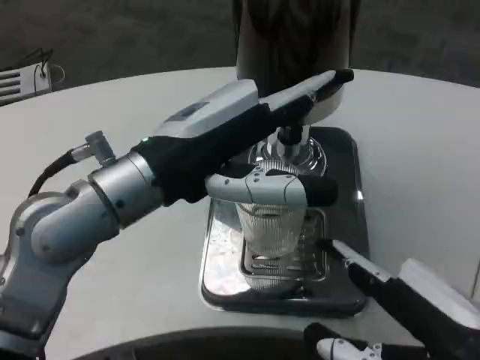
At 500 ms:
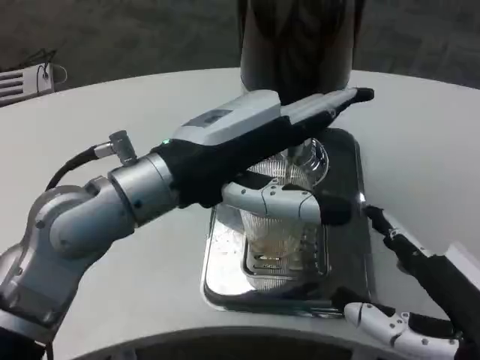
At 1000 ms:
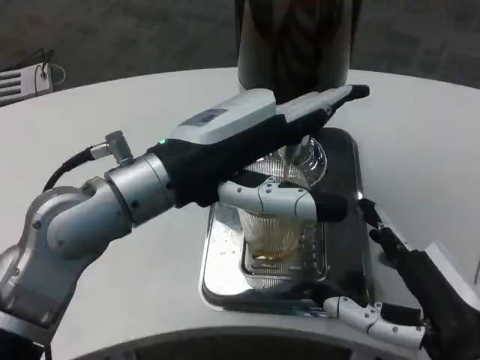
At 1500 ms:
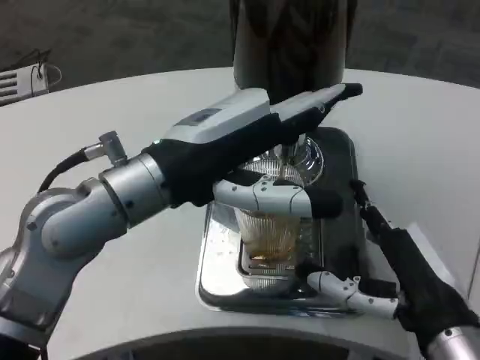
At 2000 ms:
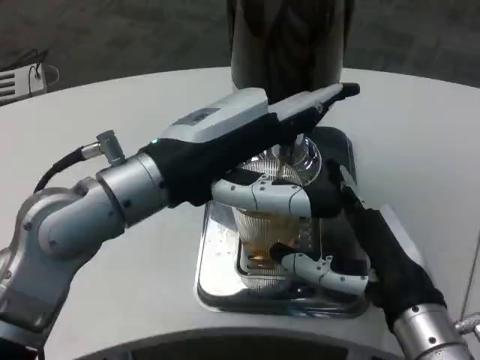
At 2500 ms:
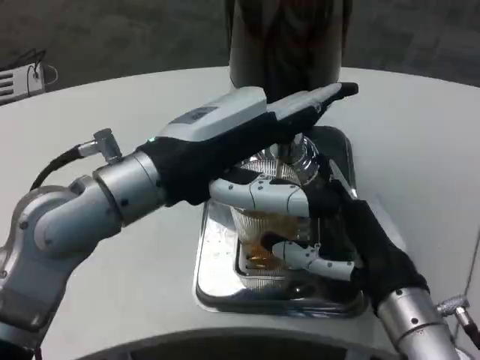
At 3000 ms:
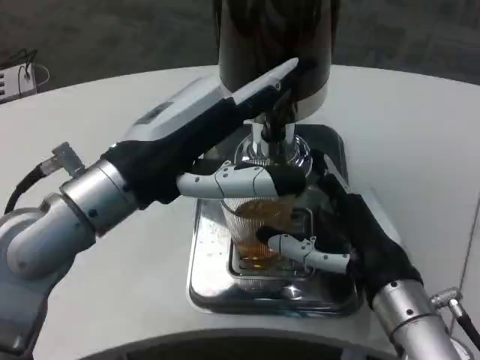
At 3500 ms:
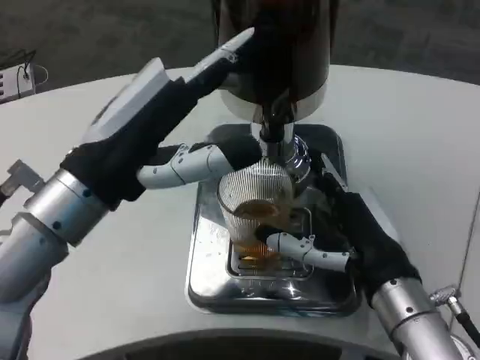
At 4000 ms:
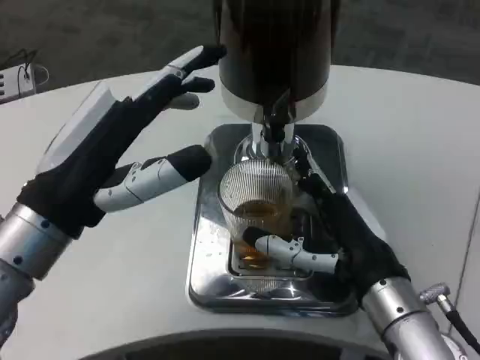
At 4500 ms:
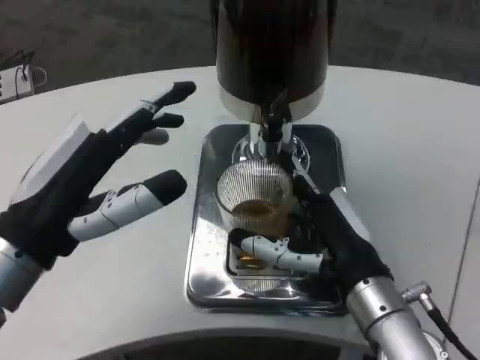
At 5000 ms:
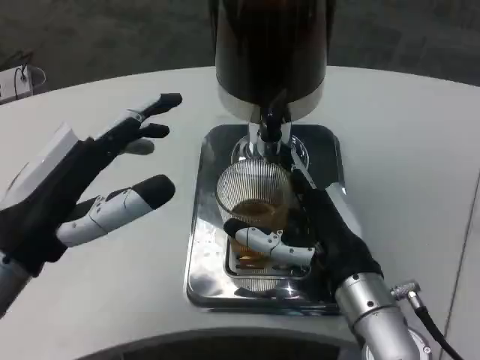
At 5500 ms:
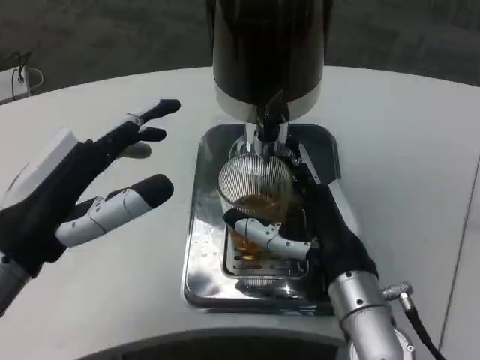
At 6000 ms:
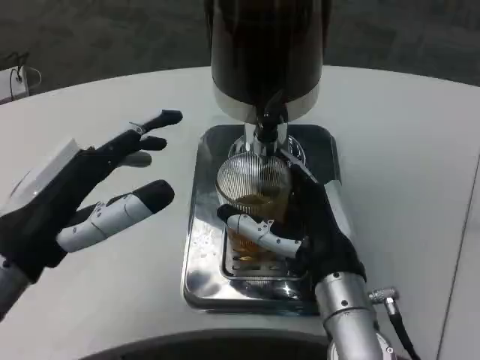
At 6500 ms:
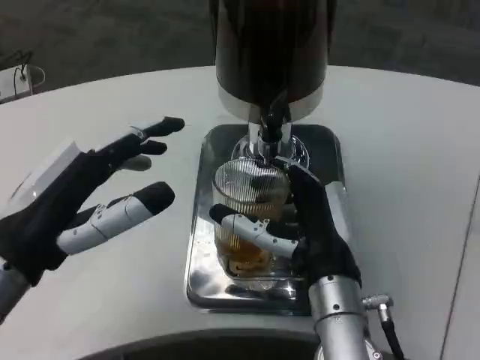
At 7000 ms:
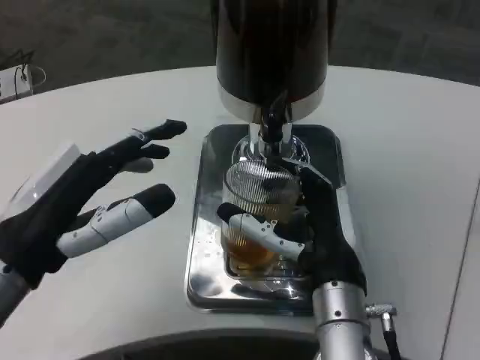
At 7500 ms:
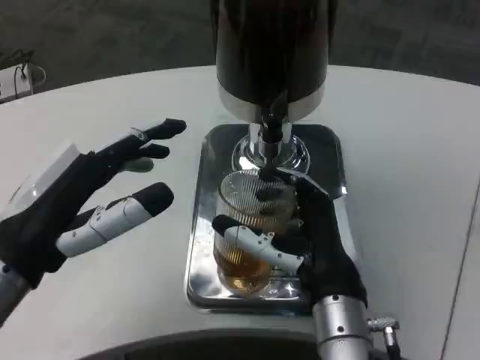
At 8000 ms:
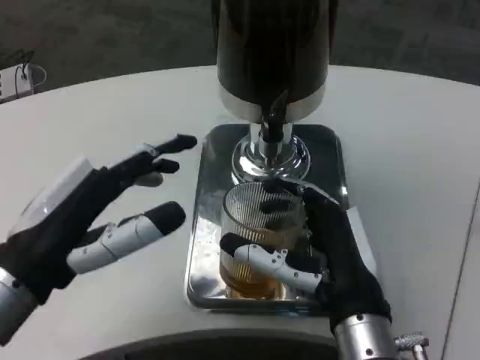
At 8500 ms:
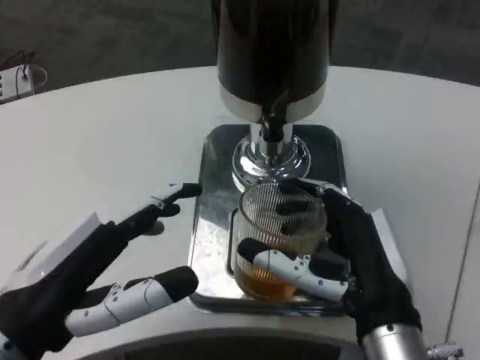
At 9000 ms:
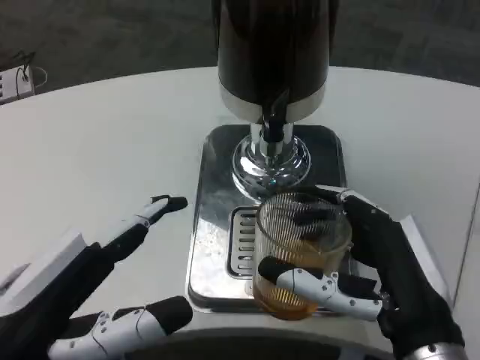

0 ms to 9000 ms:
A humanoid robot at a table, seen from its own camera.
Task of the whole recording: Grasp the cup under the faucet to collect the drink, then remove the cup.
0 ms to 2000 ms: The right hand travels forward and downward by some 10 cm.
2000 ms to 4500 ms: The left hand heads to the left, downward and backward, covering approximately 10 cm.
4500 ms to 7000 ms: The right hand is displaced to the left by about 5 cm.
7000 ms to 9000 ms: The left hand moves backward, roughly 5 cm. Meanwhile the right hand moves backward and to the right, approximately 10 cm.

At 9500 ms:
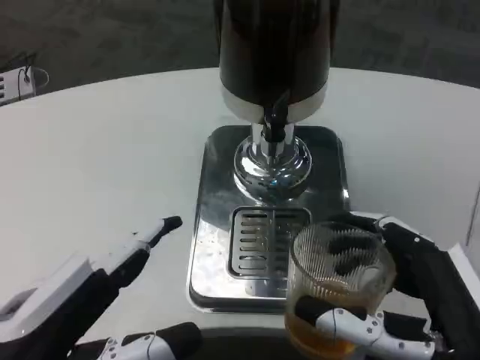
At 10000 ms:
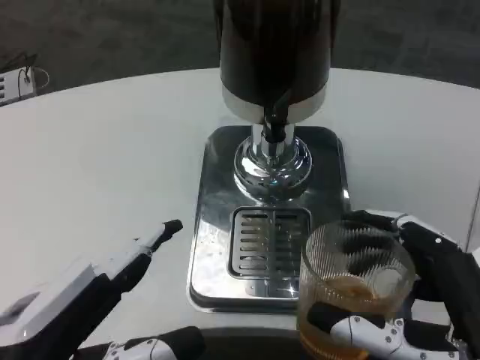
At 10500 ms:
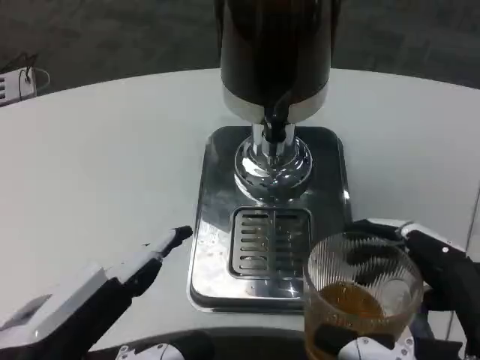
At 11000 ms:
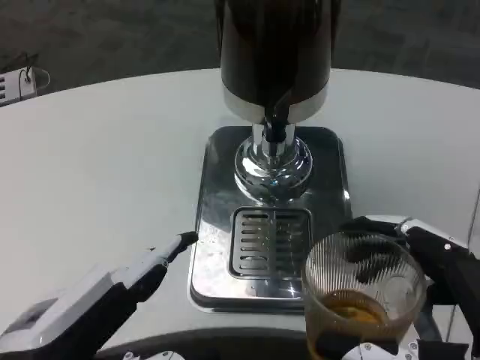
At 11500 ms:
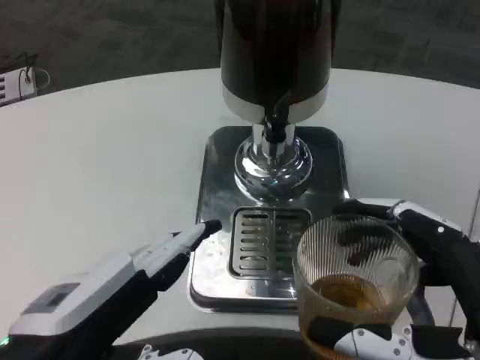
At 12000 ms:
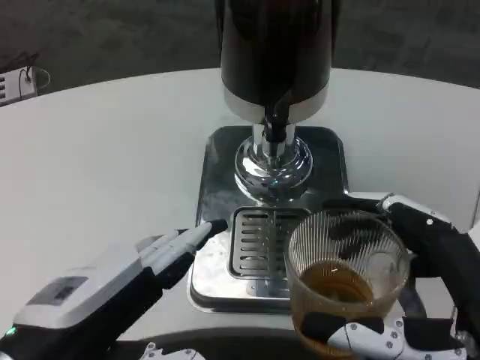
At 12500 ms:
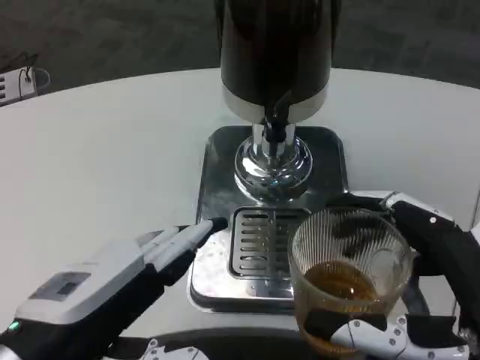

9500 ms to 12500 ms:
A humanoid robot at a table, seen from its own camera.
Task of the whole recording: Grasp the cup under the faucet to collect the drink, then remove the cup.
9500 ms to 12500 ms: The hands make only small movements.

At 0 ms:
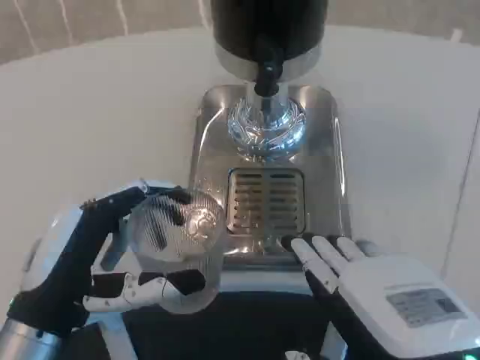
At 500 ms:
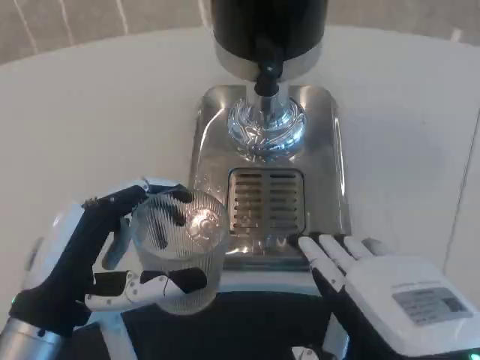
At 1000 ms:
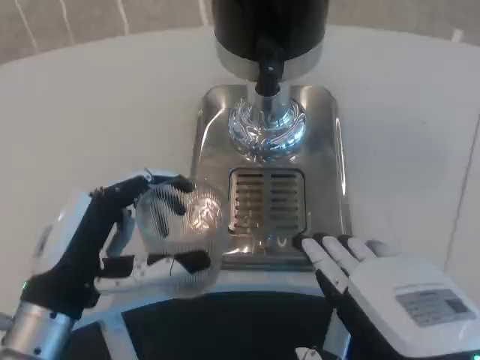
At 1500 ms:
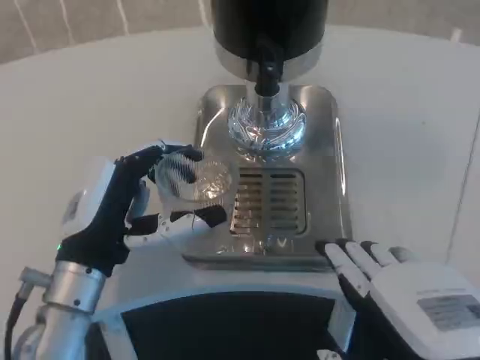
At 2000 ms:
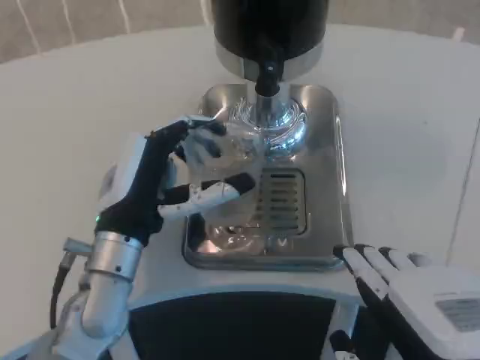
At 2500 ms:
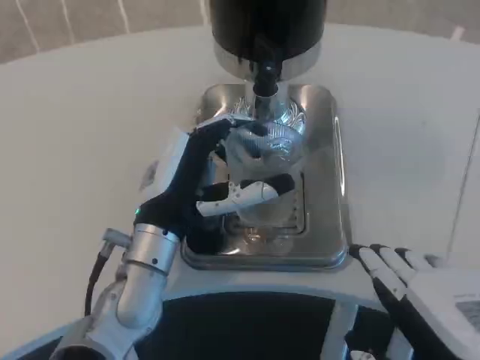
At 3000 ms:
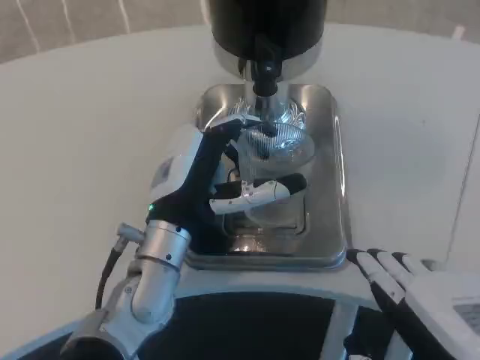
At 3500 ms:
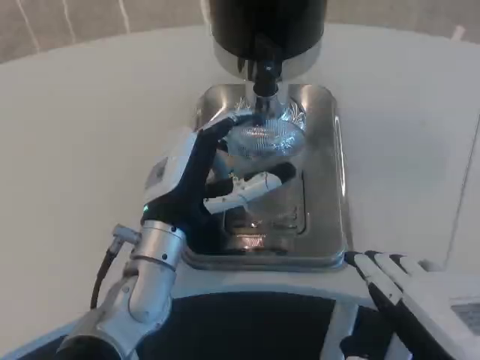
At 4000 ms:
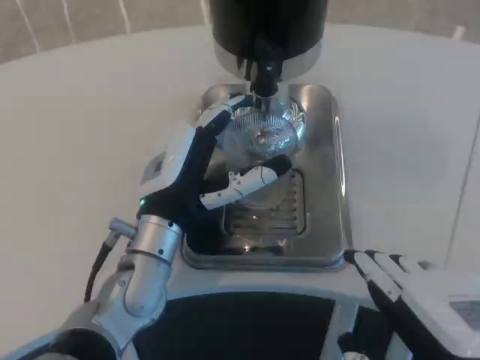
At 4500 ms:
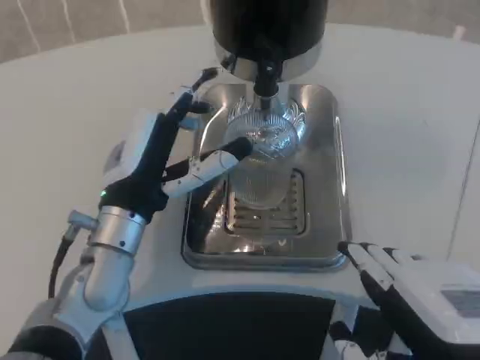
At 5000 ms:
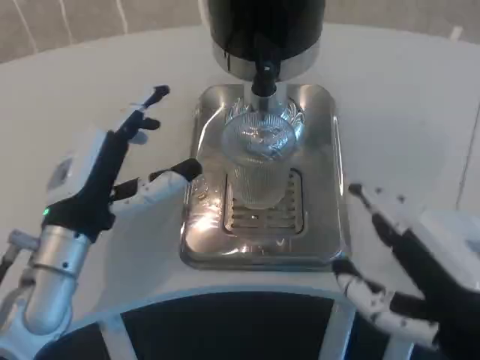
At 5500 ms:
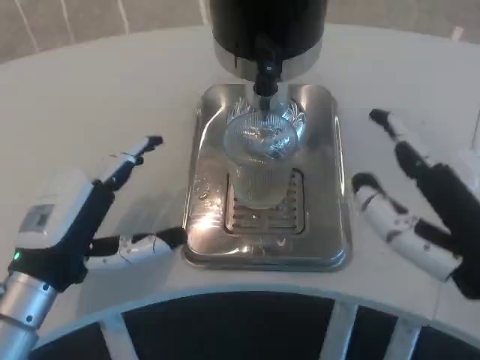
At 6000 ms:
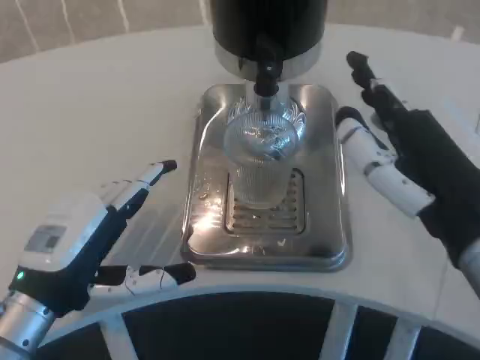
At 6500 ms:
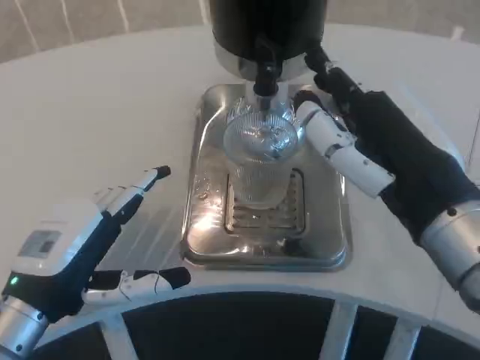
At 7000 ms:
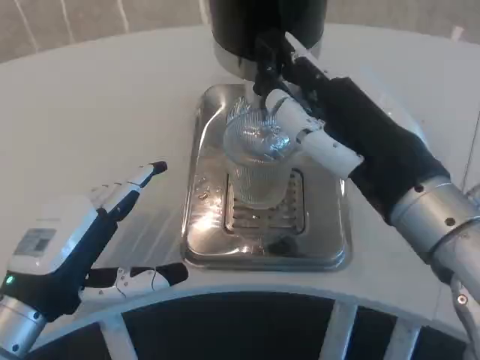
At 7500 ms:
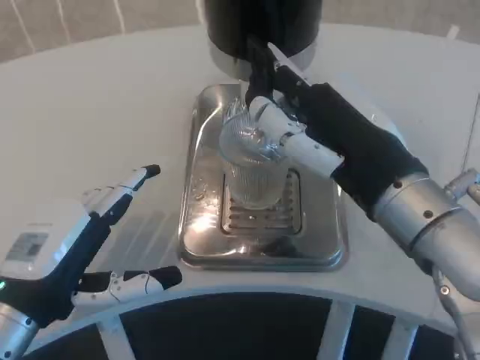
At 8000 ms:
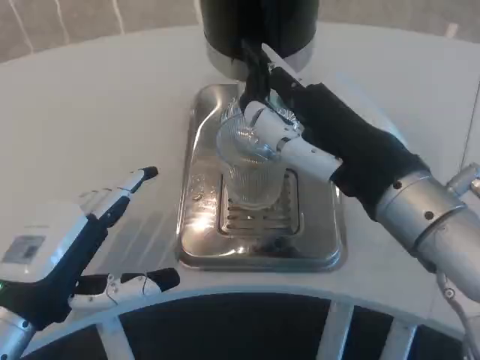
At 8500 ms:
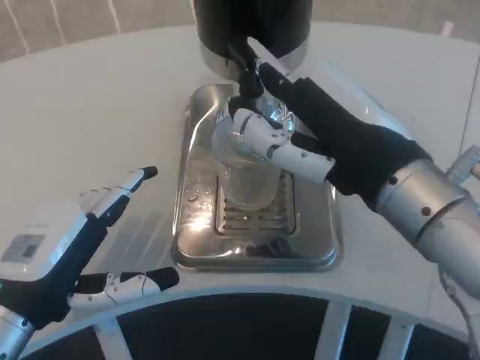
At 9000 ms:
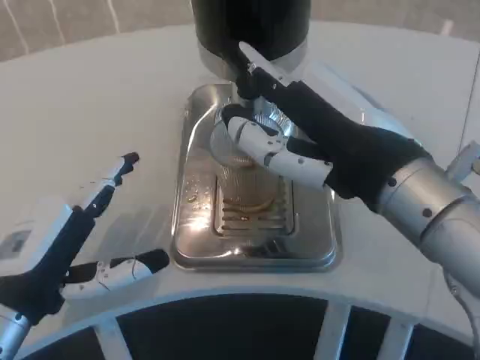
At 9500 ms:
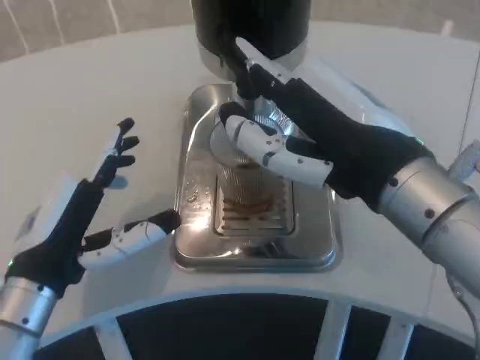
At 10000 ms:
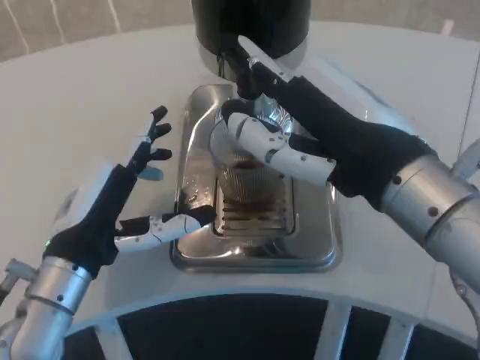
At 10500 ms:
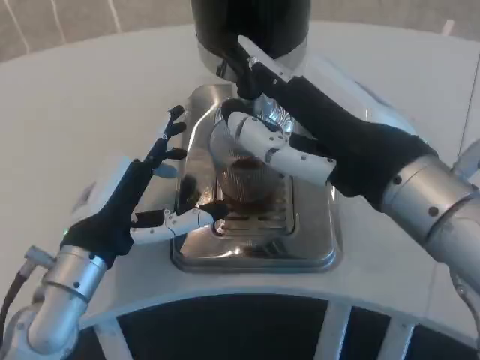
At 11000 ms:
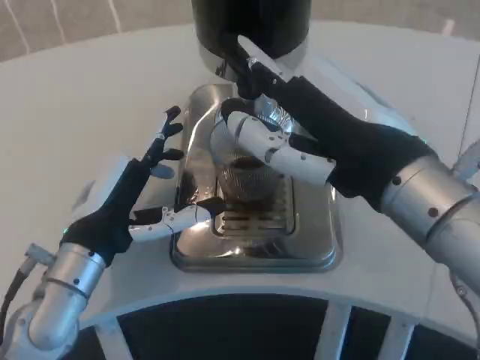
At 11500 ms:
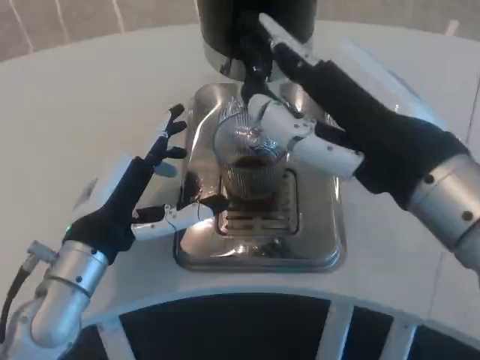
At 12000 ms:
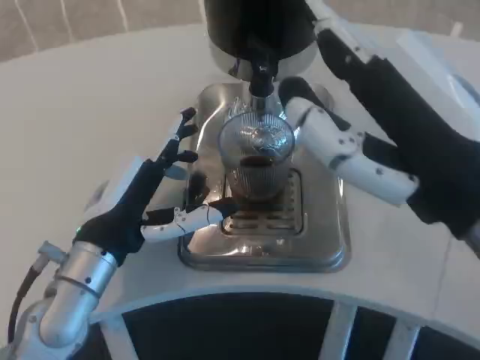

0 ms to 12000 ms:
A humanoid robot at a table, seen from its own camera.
Task of the whole recording: Grasp the cup under the faucet to collect the drink, then remove the cup.
0 ms to 2000 ms: The left hand goes about 10 cm forward and to the right.
2000 ms to 4000 ms: There are only small adjustments of the hands.
4000 ms to 6000 ms: The left hand is displaced to the left and backward by roughly 15 cm. The right hand heads forward, covering roughly 10 cm.
6000 ms to 8000 ms: The right hand changes place by some 5 cm.
8000 ms to 10000 ms: The left hand shifts by roughly 5 cm.
10000 ms to 12000 ms: The right hand shifts about 5 cm backward.

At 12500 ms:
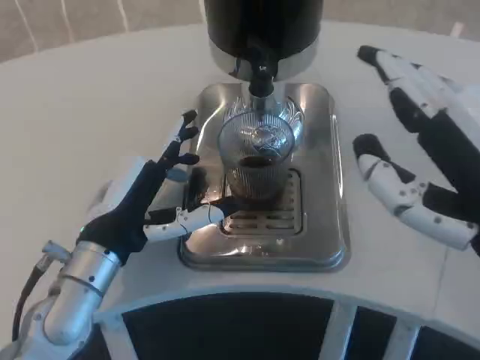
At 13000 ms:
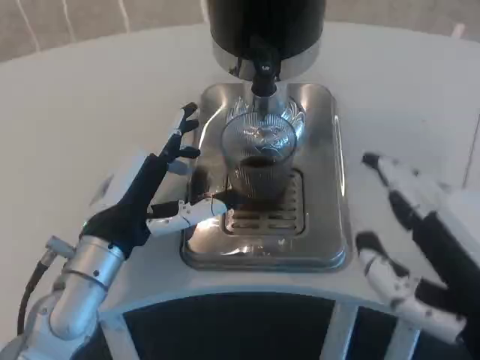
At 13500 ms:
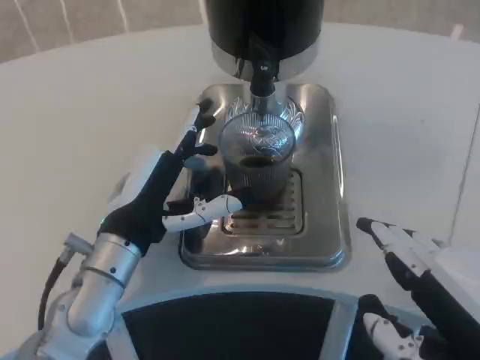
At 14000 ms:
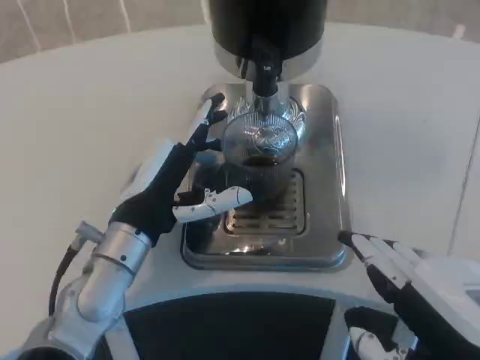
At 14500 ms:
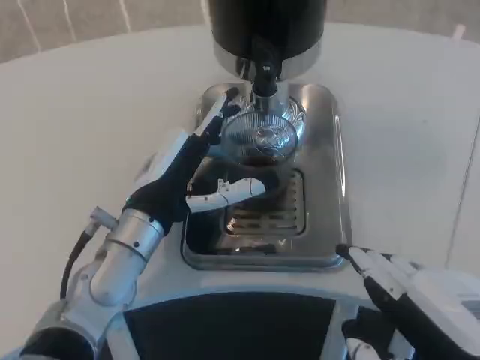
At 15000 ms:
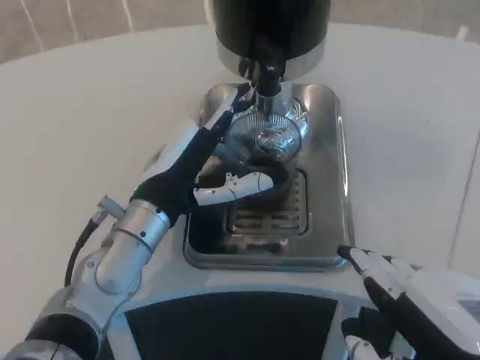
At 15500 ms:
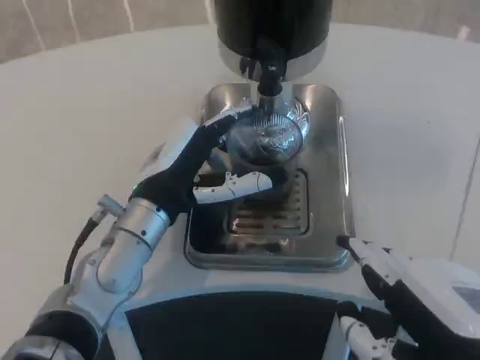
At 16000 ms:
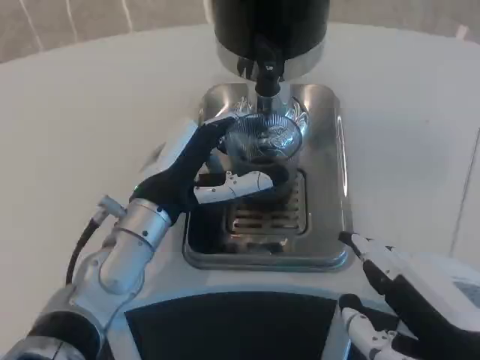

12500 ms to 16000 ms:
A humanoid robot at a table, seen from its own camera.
Task of the whole recording: Grasp the cup under the faucet to collect the drink, then remove the cup.
12500 ms to 14500 ms: The left hand changes place by about 5 cm, while the right hand heads downward, covering some 5 cm.
14500 ms to 16000 ms: There are only small adjustments of the hands.
